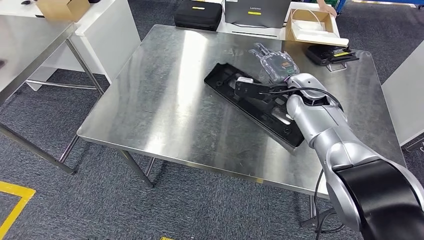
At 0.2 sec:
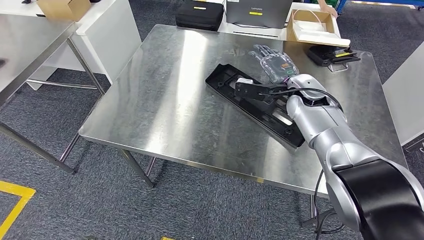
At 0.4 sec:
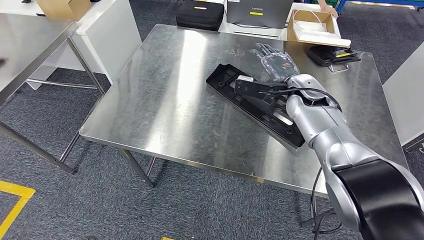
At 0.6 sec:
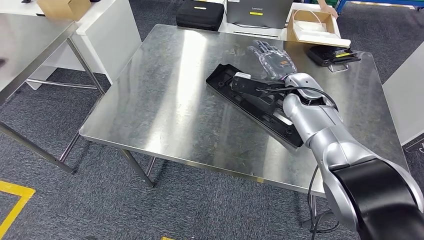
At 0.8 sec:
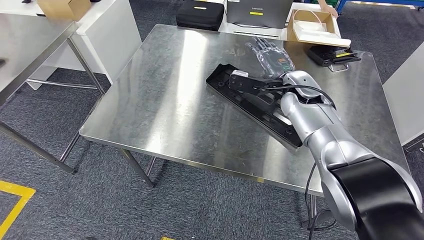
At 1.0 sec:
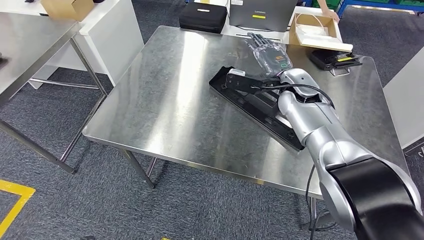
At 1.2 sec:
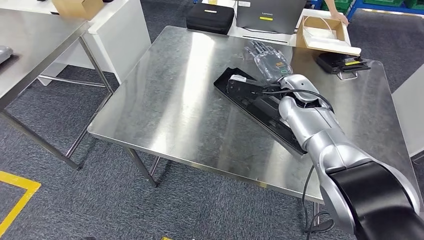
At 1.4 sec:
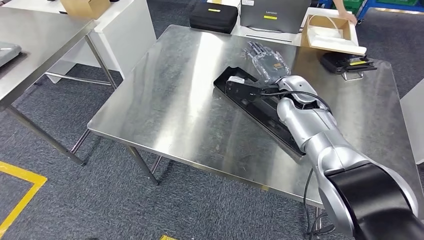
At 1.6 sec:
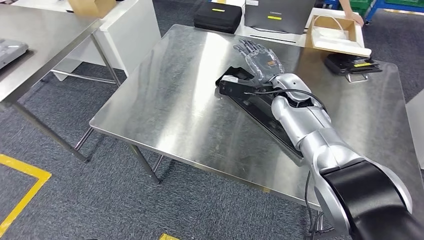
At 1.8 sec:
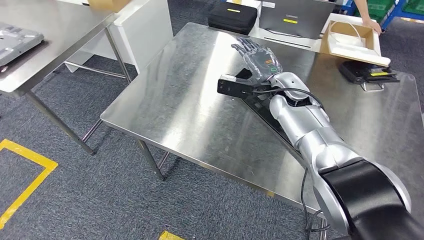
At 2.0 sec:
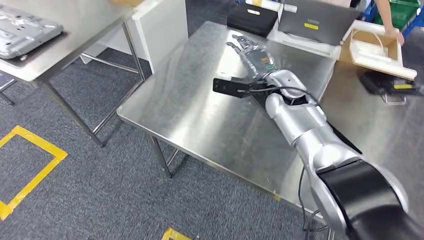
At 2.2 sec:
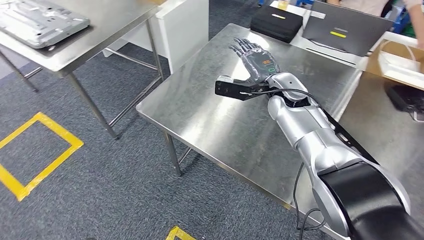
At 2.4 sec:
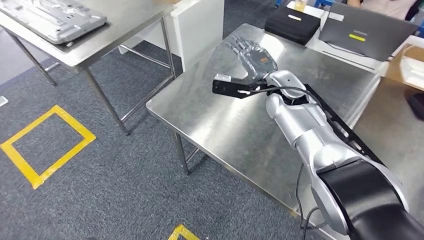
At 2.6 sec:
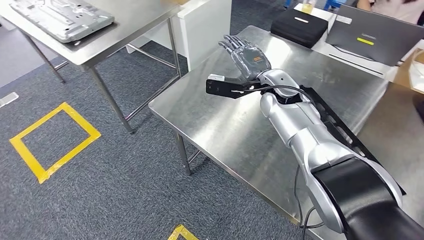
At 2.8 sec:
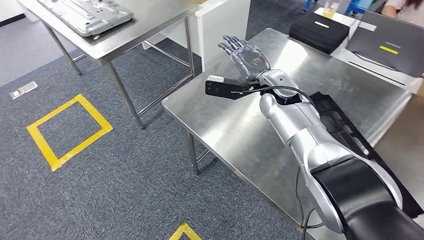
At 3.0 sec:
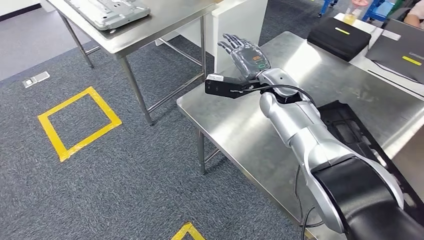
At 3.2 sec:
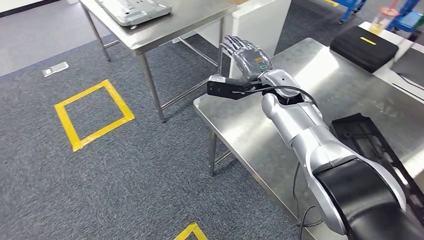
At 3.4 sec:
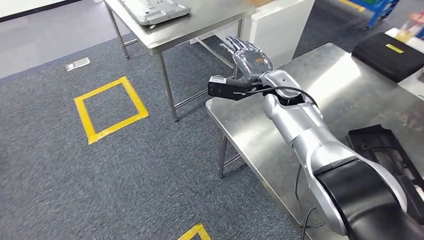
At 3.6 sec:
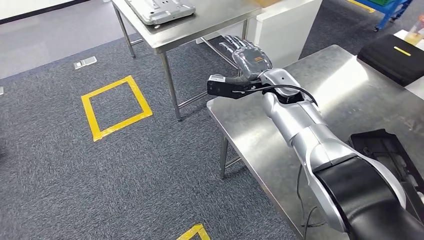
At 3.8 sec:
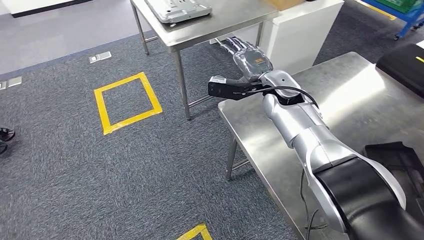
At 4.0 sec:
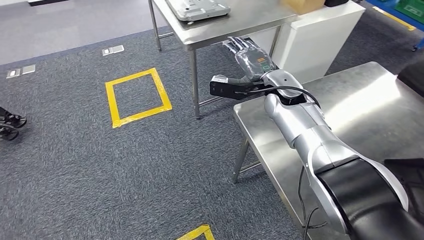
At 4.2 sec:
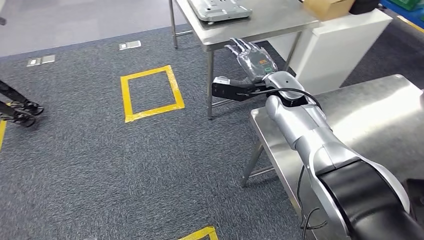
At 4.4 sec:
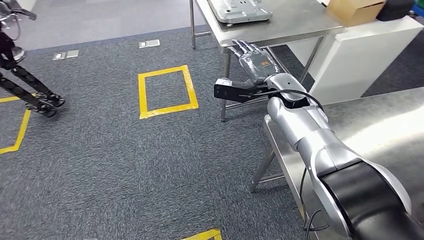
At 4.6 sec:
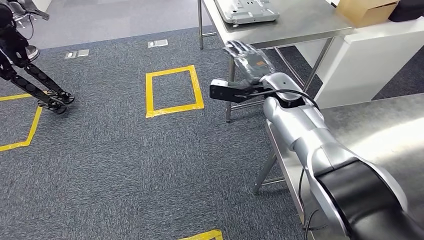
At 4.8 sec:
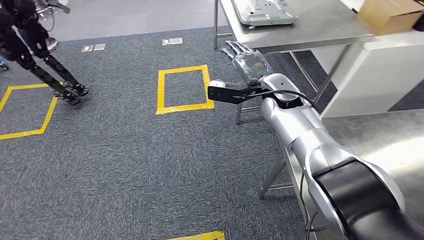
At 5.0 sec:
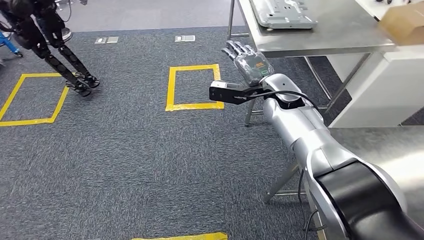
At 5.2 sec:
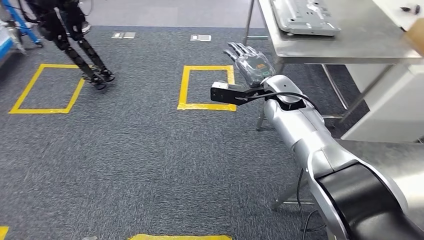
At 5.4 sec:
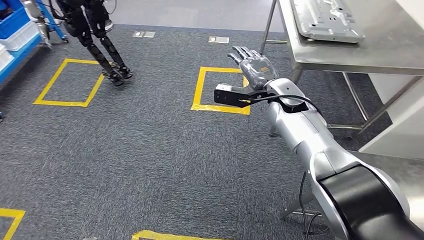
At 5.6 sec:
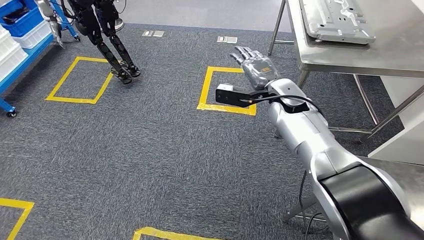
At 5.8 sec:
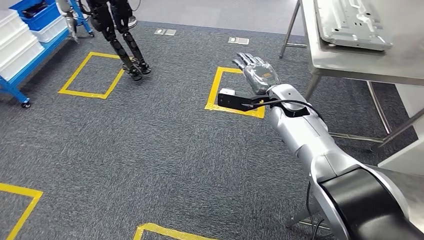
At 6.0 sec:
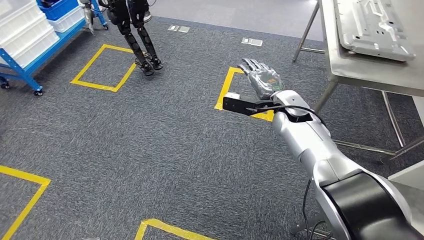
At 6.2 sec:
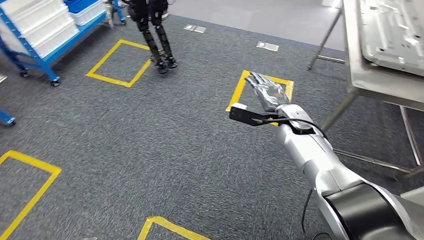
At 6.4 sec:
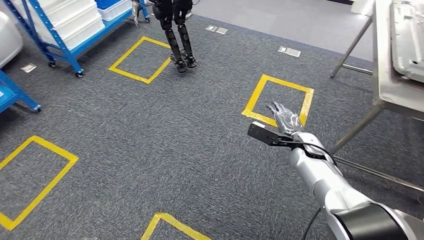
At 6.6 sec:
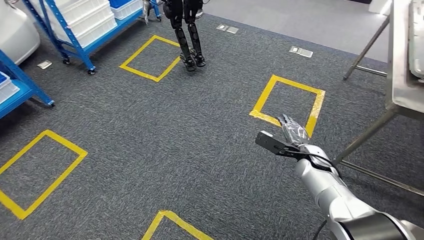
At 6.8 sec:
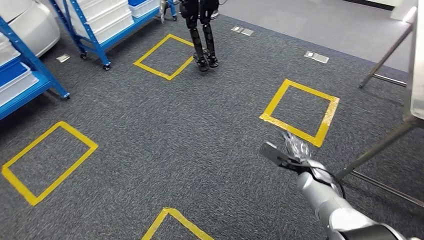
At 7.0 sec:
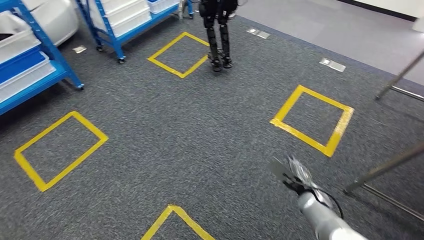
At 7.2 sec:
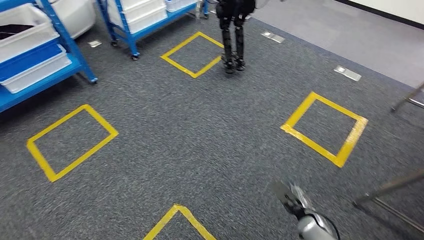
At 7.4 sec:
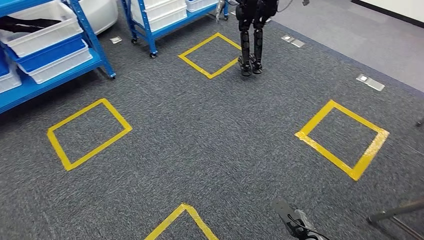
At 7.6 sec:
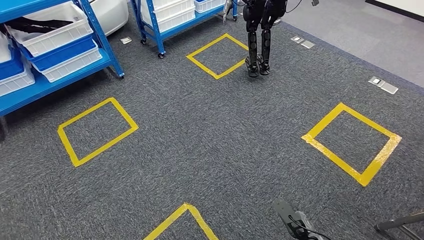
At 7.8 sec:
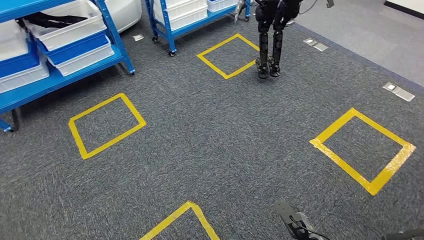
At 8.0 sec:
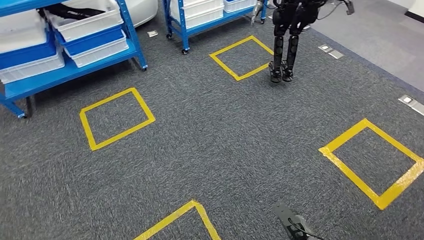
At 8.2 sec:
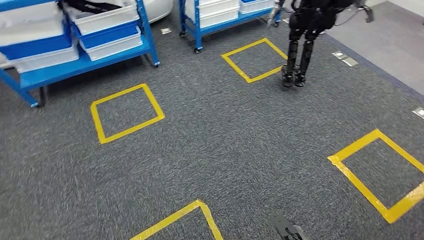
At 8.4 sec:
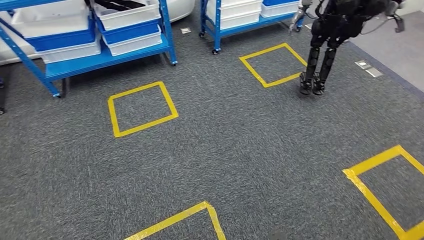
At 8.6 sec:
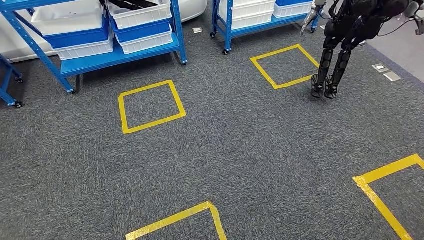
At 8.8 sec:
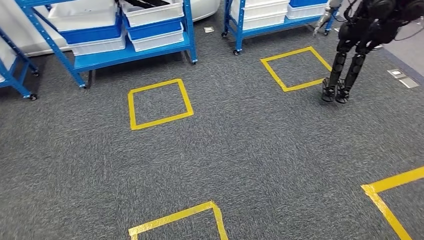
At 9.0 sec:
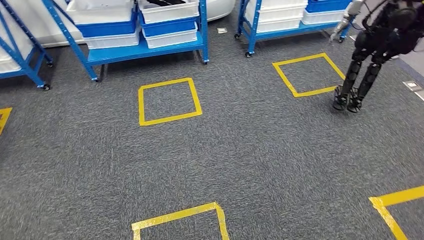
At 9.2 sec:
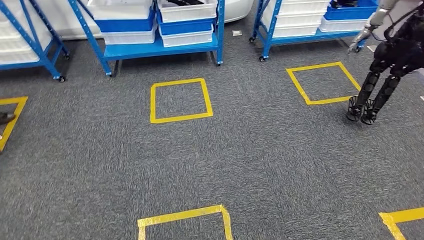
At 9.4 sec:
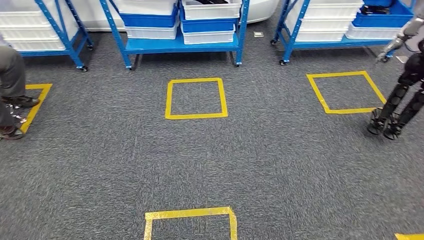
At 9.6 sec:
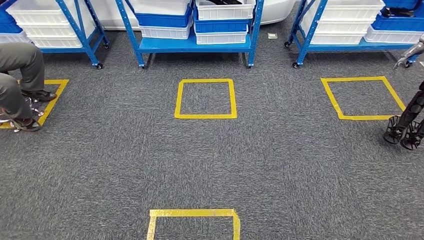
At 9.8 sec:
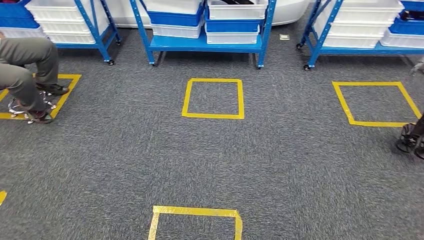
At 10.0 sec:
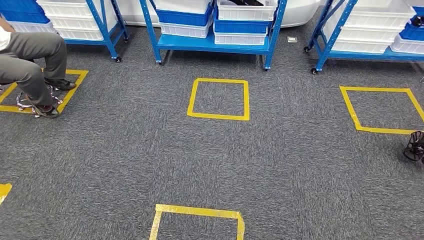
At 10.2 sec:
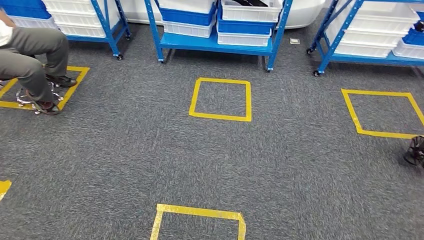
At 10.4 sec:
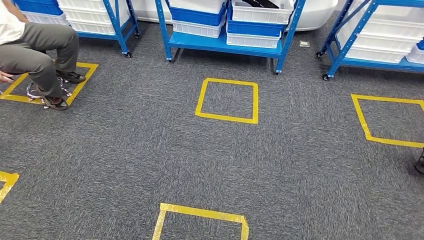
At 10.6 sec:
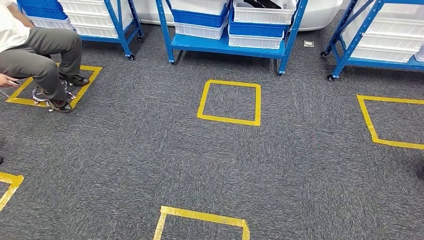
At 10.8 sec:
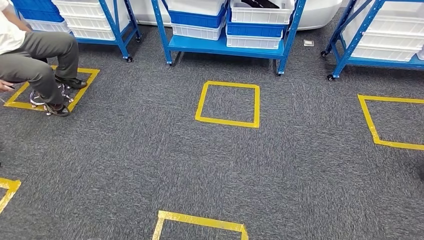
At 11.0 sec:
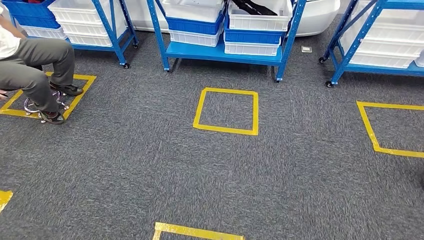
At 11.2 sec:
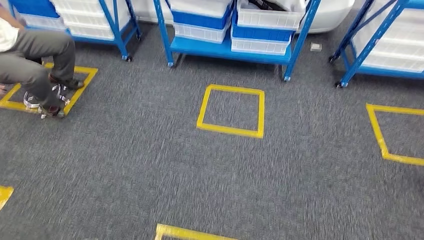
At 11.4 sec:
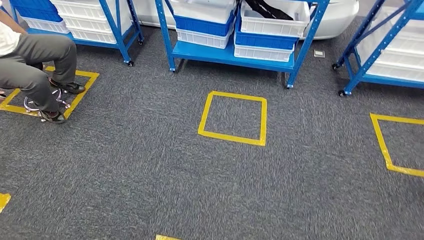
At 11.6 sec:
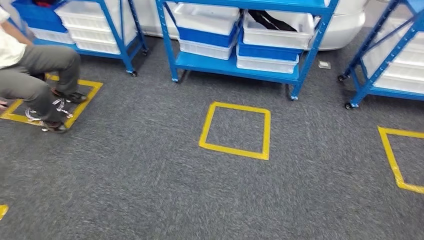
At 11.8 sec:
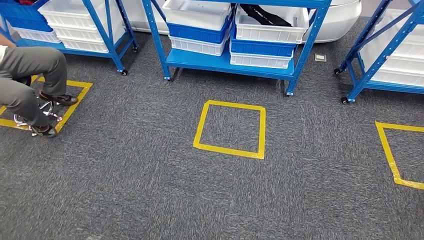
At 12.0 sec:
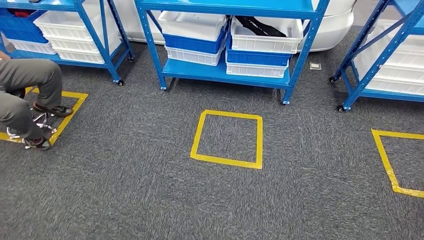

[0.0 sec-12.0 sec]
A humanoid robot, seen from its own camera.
Step, 0.0 sec to 5.0 sec: Insert the large material into the corresponding slot on the workbench.

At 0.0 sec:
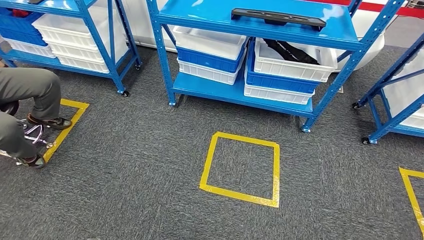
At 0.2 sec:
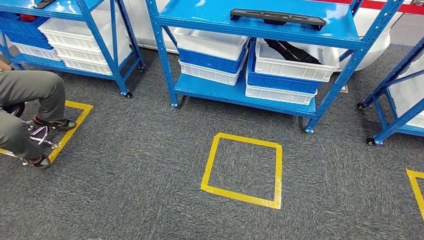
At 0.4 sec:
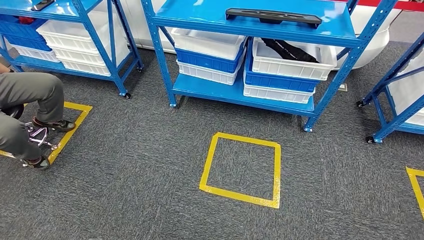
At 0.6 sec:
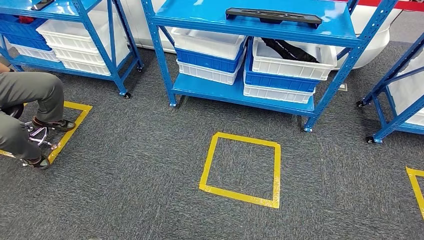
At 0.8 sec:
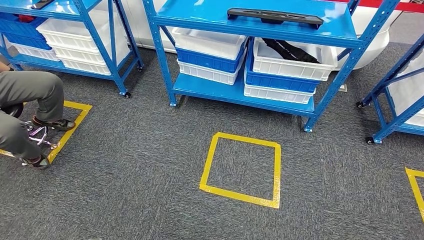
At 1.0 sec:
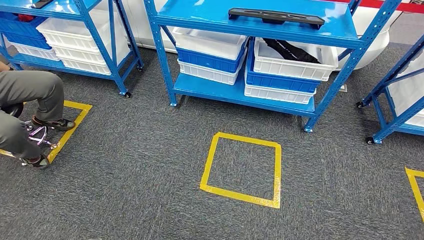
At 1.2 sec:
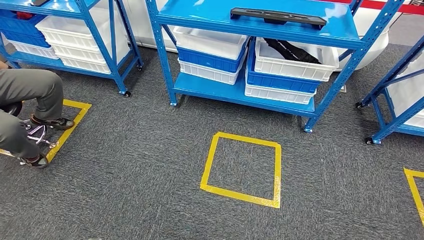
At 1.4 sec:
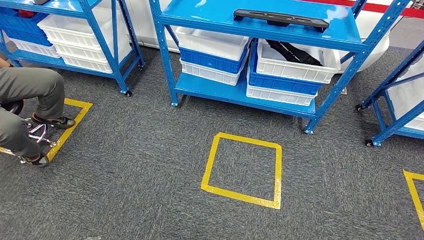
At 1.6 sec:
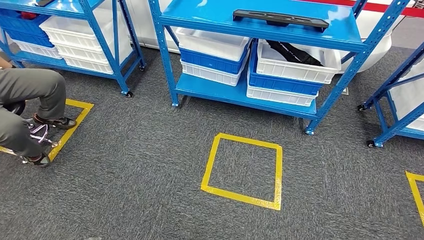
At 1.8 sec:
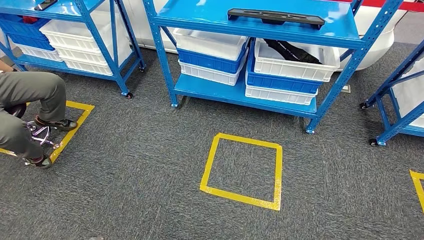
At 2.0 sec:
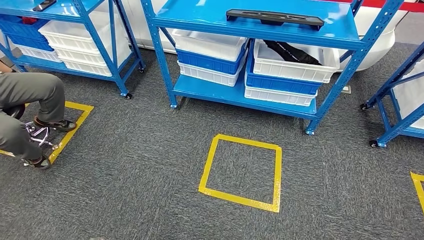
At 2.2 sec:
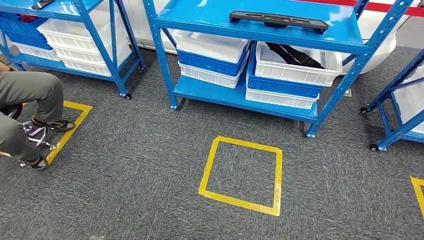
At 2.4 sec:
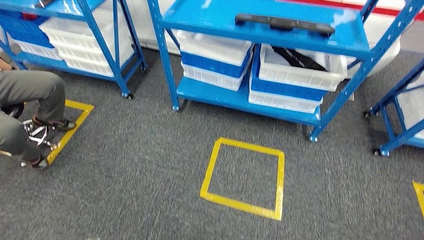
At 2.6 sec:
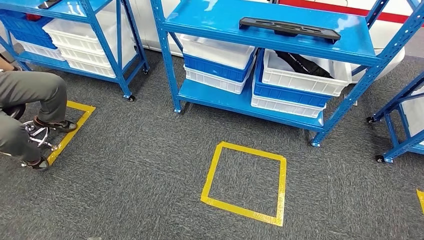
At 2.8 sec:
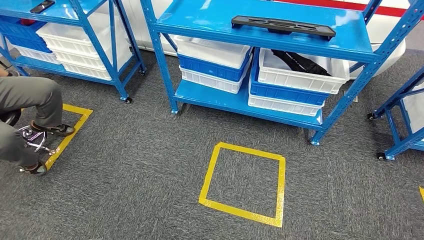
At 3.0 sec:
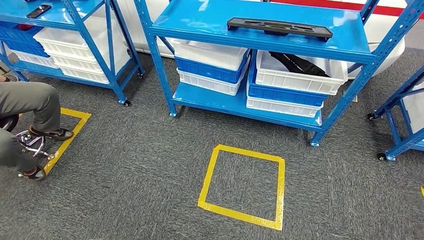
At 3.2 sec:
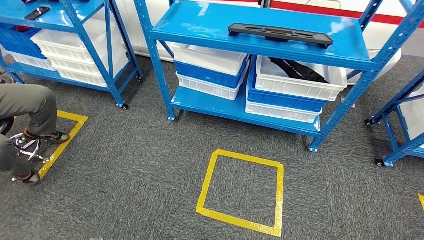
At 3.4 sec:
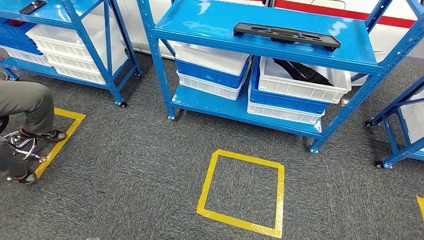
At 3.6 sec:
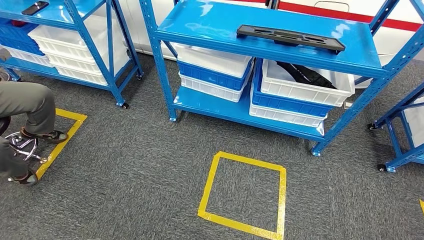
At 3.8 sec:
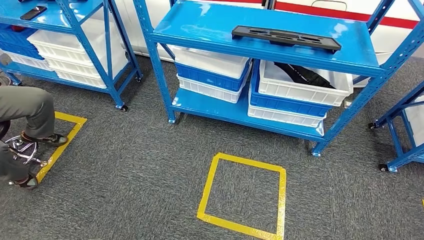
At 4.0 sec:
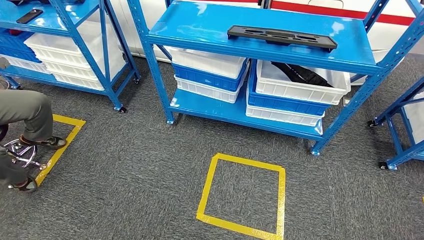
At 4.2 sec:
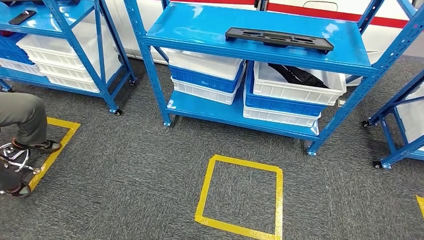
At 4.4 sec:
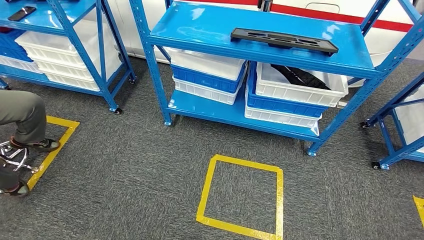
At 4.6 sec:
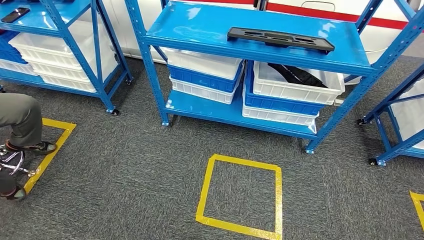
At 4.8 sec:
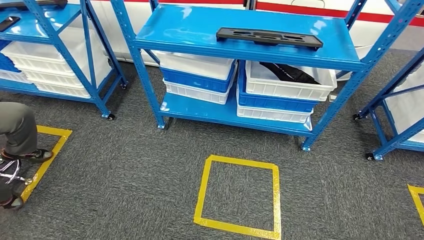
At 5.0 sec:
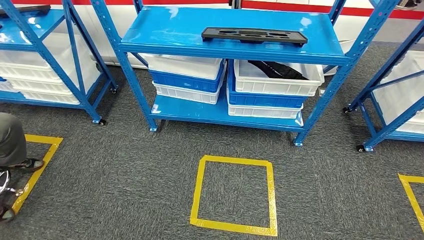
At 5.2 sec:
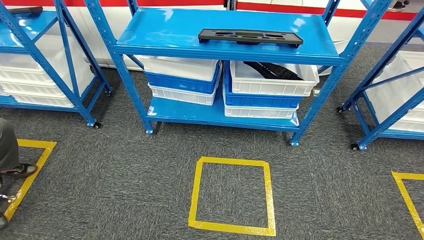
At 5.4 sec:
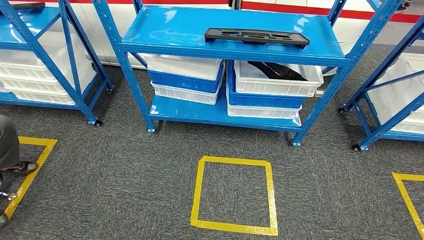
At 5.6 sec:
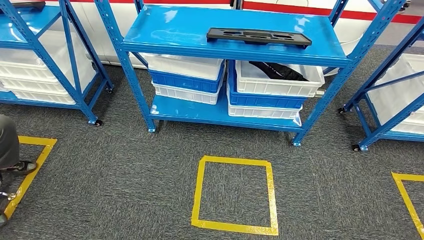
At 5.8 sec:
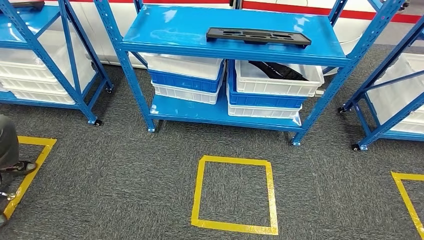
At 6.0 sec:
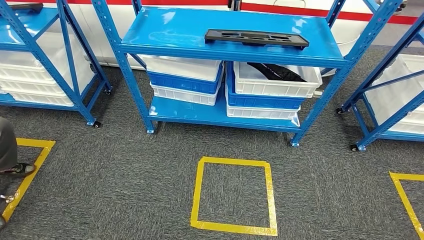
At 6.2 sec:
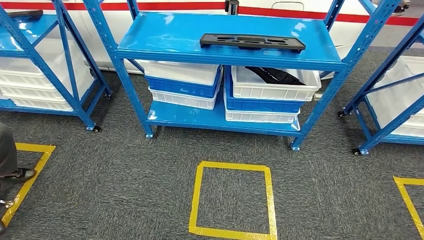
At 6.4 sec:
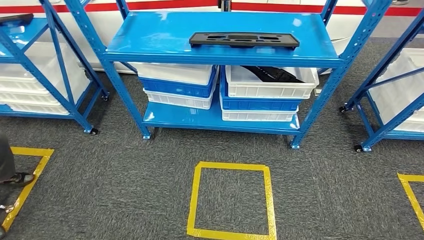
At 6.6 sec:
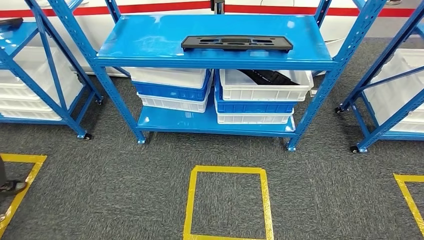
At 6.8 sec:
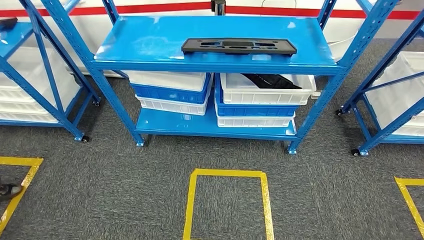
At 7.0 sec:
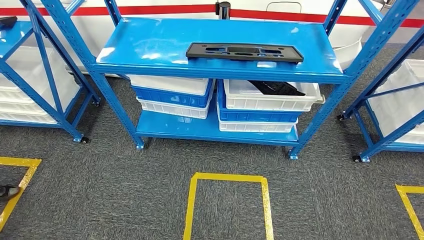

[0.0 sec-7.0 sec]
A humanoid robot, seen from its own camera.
0.0 sec to 1.4 sec: Neither hand changes place.
